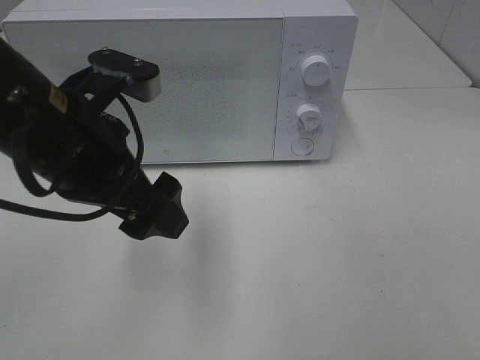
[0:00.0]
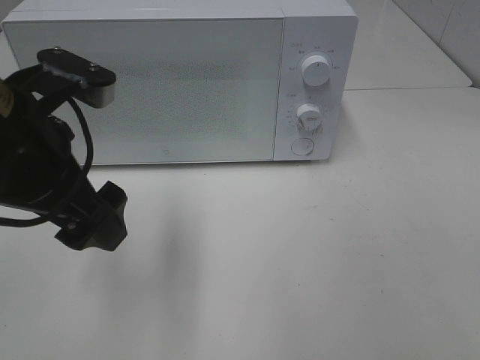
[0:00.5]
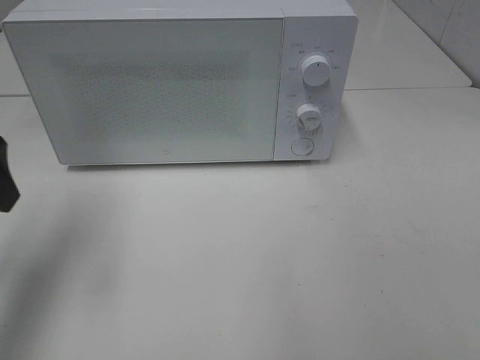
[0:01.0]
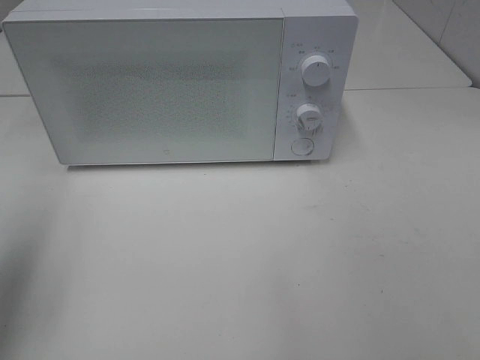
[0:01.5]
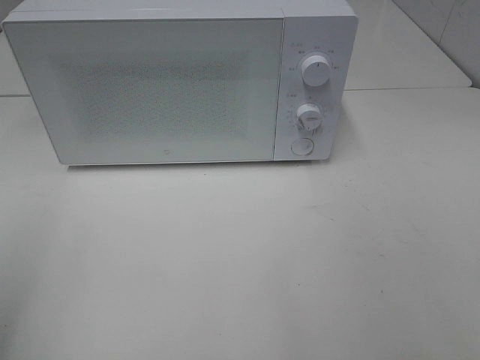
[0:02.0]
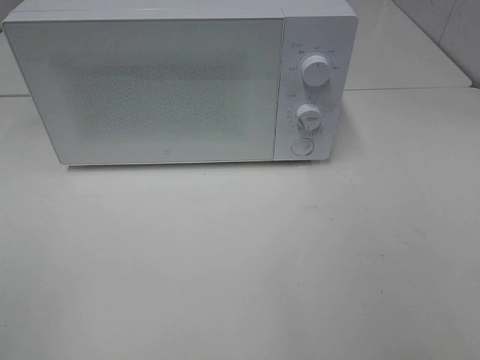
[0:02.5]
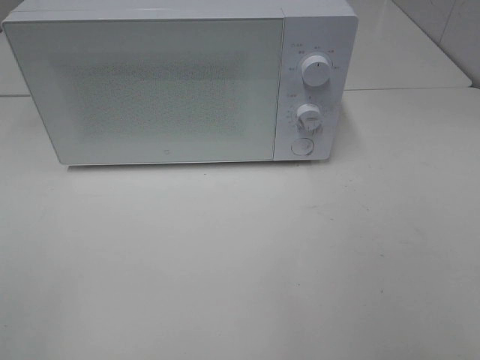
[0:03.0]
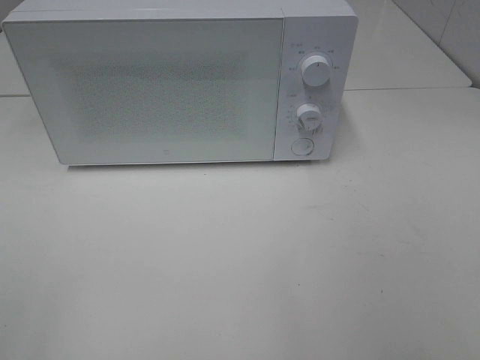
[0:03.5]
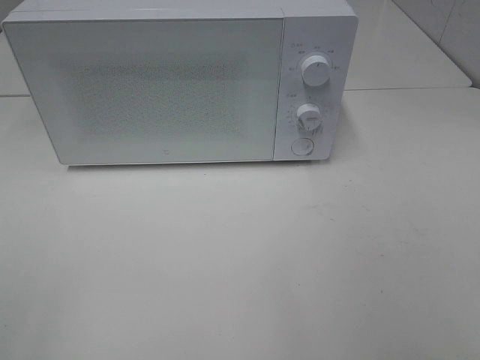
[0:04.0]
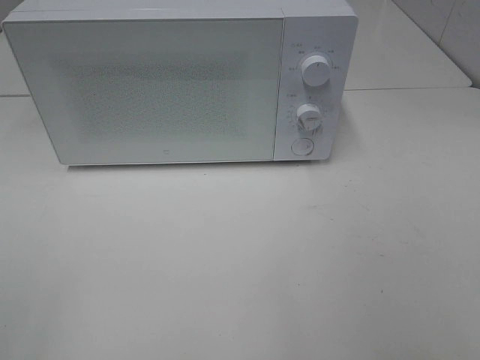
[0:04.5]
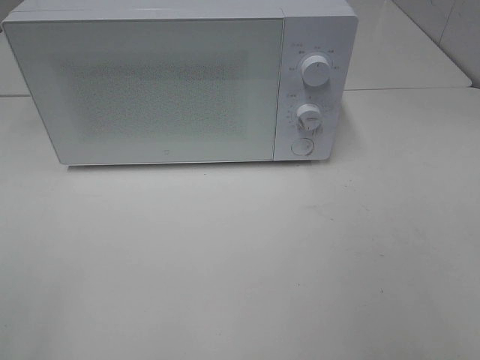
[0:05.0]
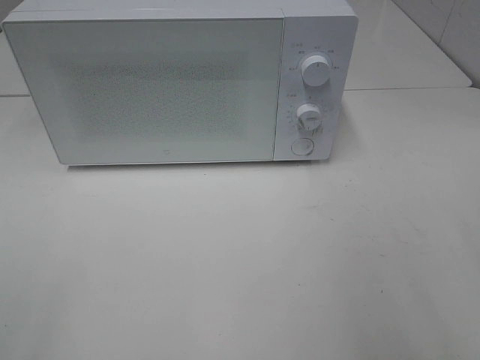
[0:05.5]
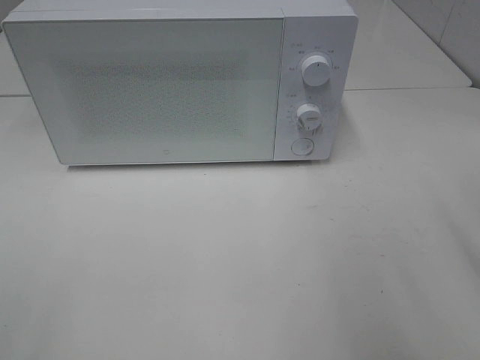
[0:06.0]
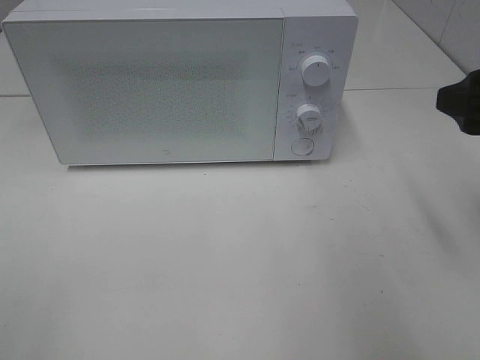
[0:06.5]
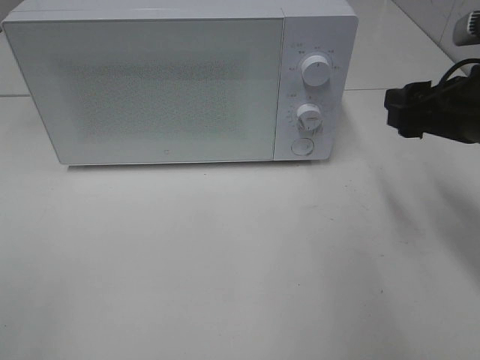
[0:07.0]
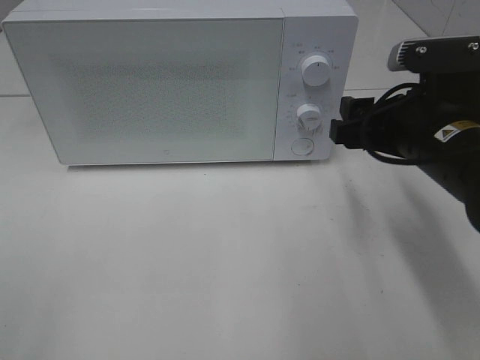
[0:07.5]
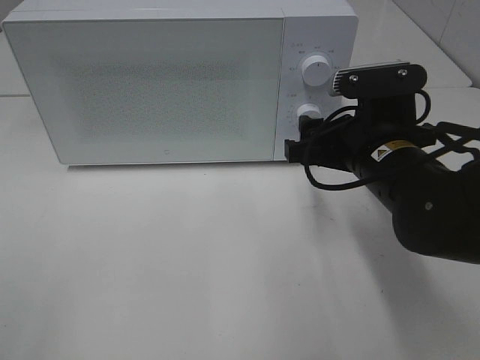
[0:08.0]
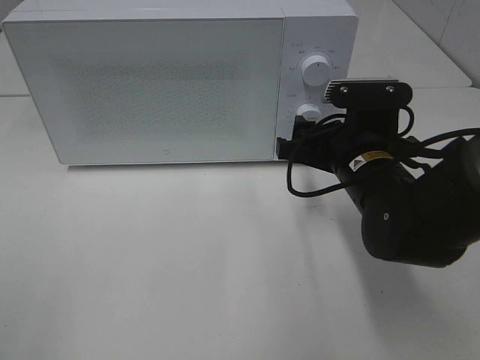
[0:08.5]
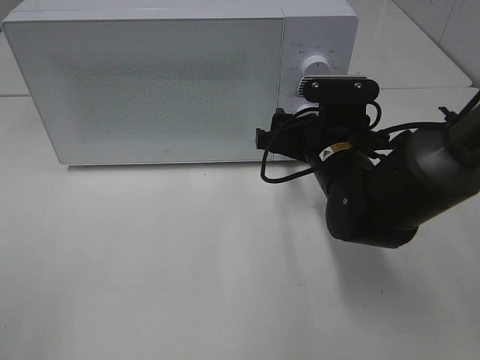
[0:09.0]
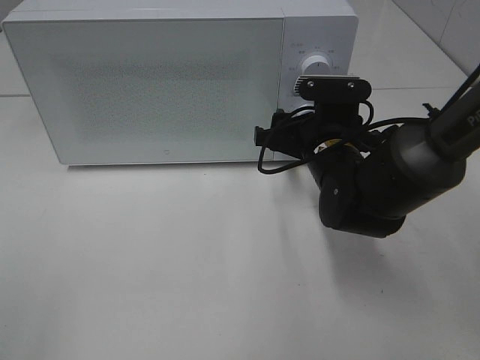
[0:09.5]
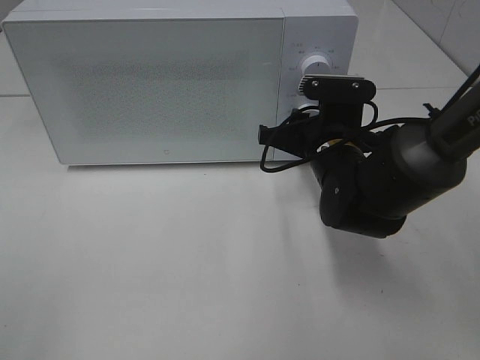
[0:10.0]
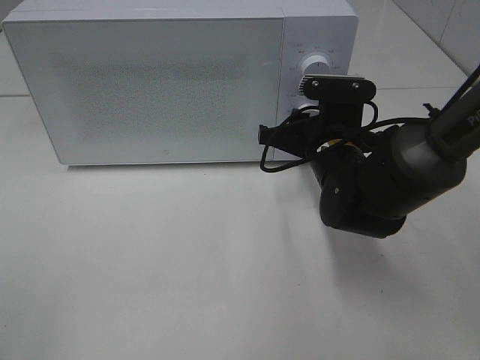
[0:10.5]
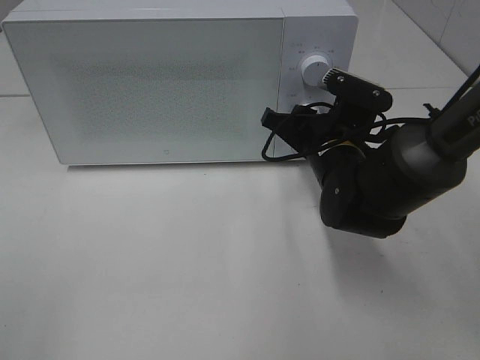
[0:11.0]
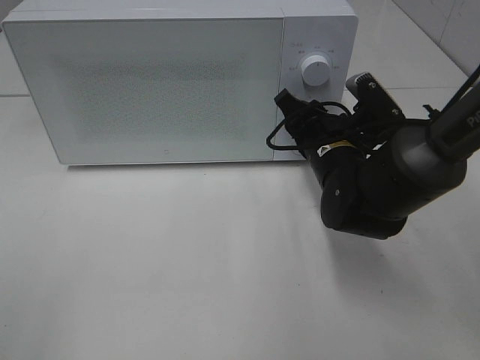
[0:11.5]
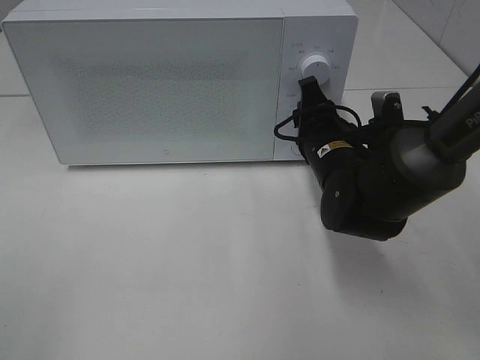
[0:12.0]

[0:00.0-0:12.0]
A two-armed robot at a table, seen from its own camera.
Task of the whole recording: Heat Sandwich.
0:00.0 to 0:02.0: The left gripper shifts approximately 25 cm to the left and backward.
0:06.0 to 0:08.0: The right gripper shifts some 20 cm downward, to the left and forward.
0:08.0 to 0:10.0: The right gripper shifts roughly 5 cm forward, and closes its fingers.

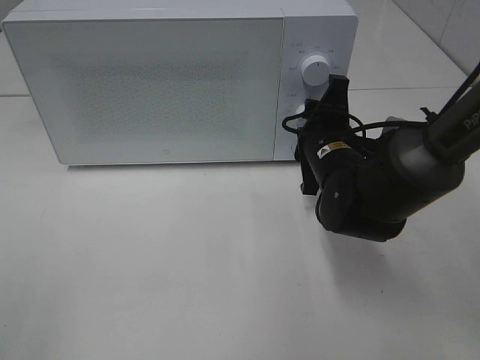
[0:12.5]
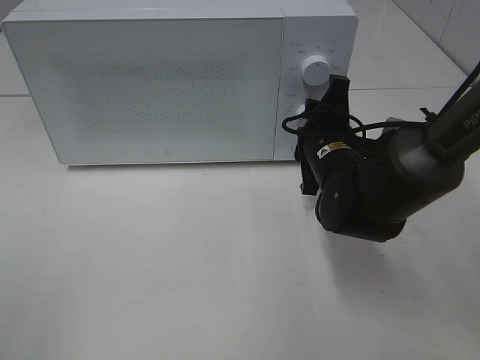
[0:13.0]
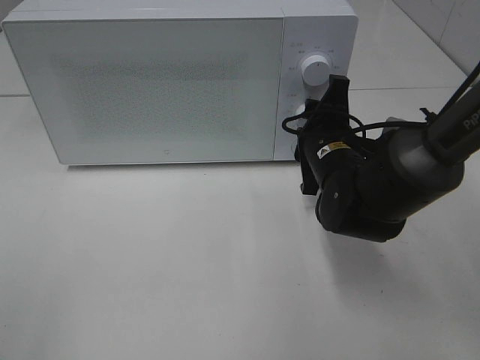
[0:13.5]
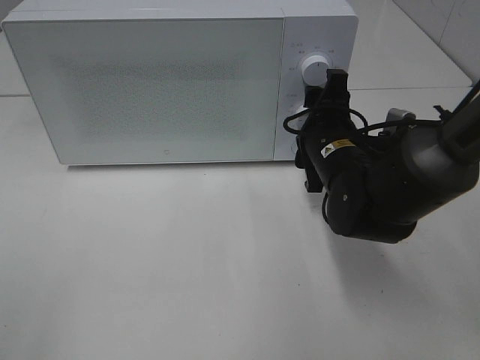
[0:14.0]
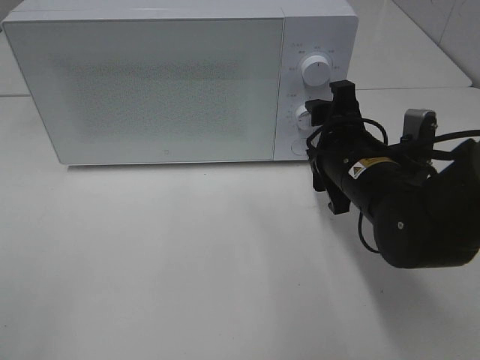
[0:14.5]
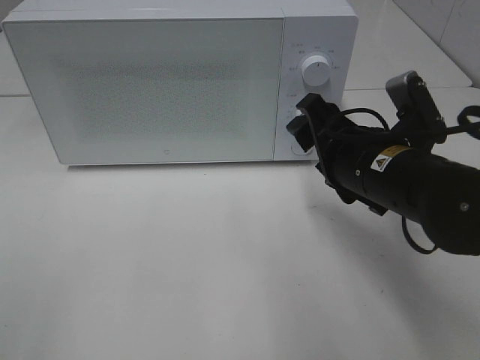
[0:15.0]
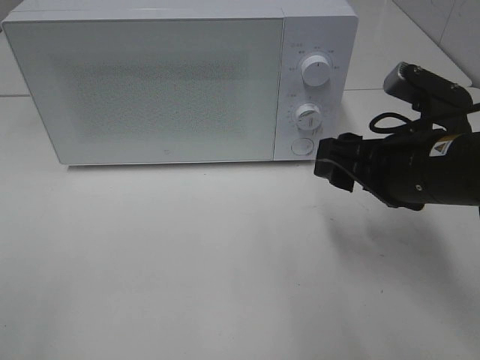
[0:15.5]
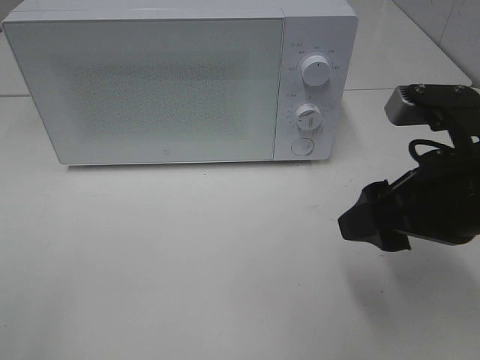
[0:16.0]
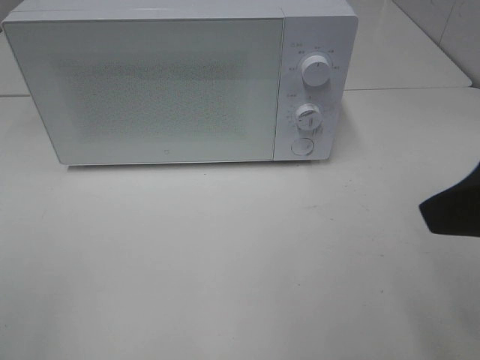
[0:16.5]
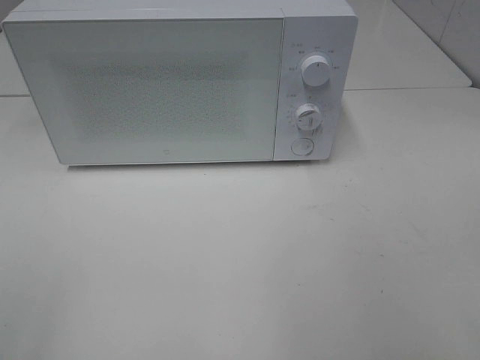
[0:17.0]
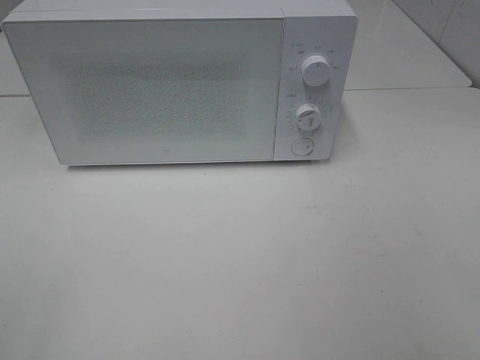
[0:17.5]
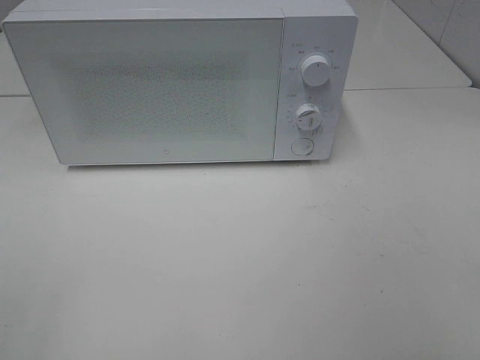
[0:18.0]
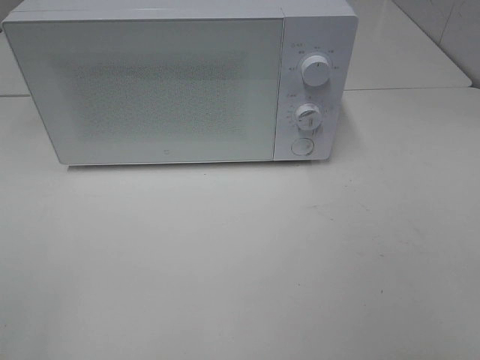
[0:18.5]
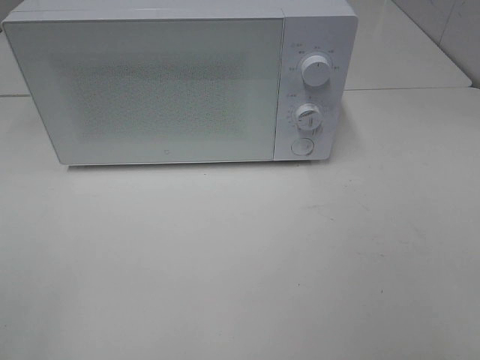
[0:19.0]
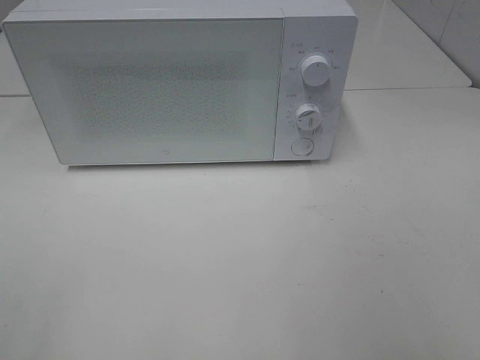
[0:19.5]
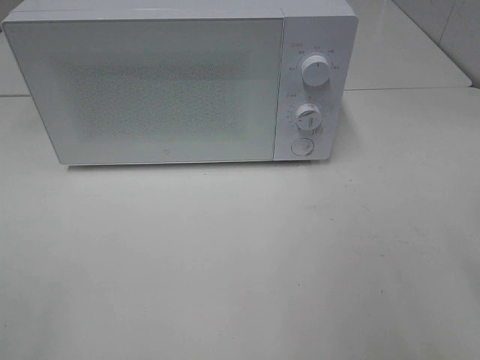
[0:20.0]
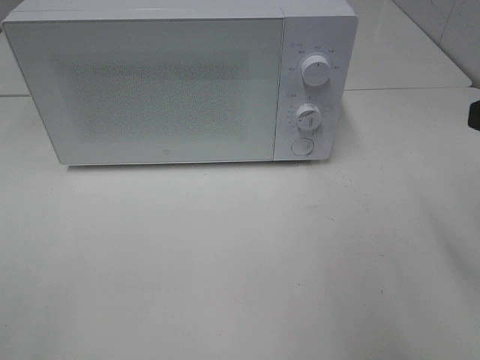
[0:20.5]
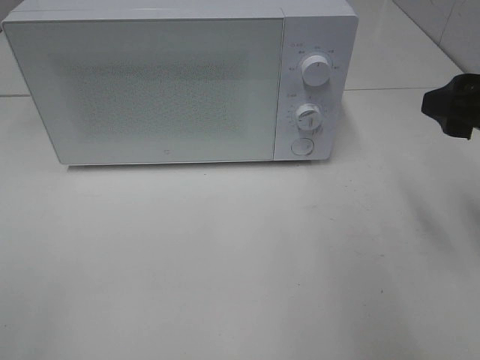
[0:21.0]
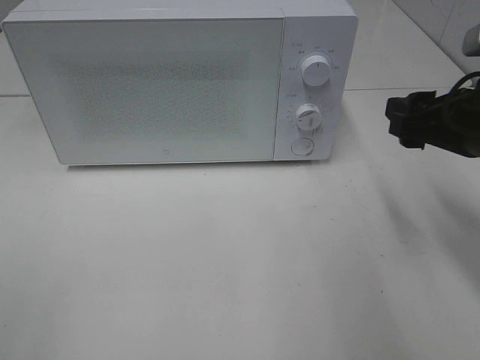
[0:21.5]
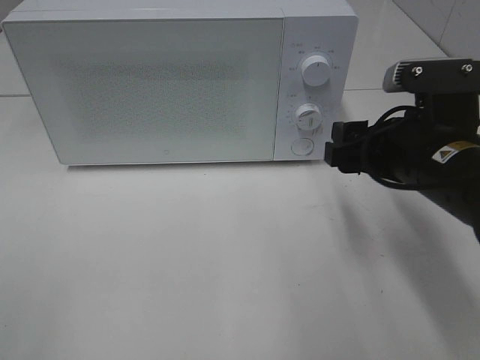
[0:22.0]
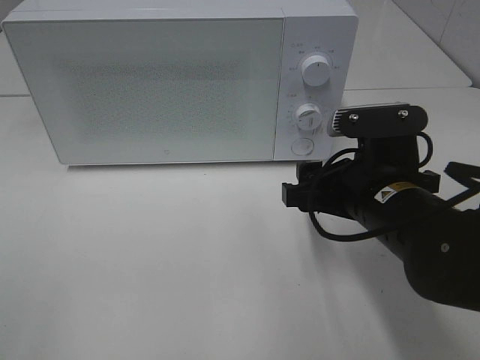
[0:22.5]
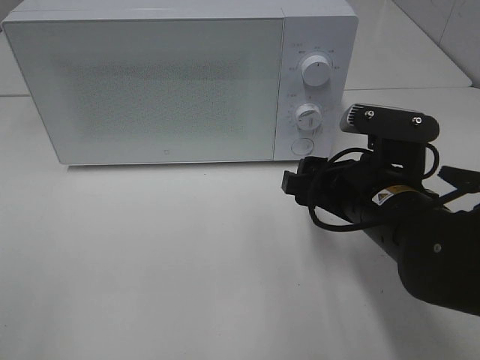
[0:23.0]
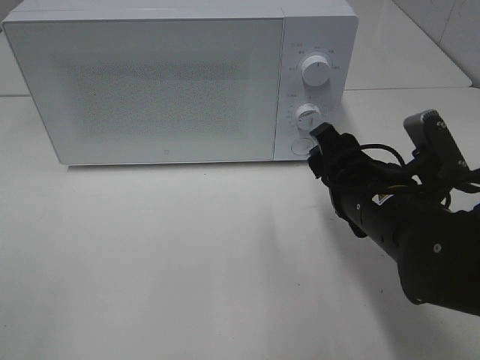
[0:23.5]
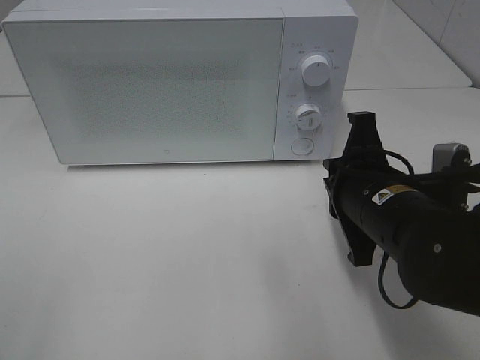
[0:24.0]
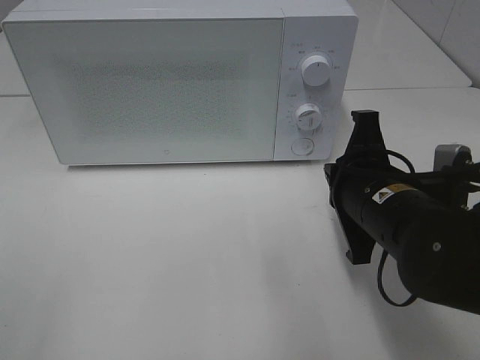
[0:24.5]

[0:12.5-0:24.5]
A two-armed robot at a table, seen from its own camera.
Task of the whole recording: Heat Sandwich.
0:12.5 to 0:14.5: The right gripper moves roughly 5 cm.
0:14.5 to 0:16.5: The right gripper is displaced upward, backward and to the right by about 25 cm.
0:16.5 to 0:18.5: The right gripper is displaced backward and to the right by about 15 cm.
0:20.5 to 0:22.5: The right gripper is displaced downward, to the left and forward by about 20 cm.
0:22.5 to 0:24.5: The right gripper closes up.

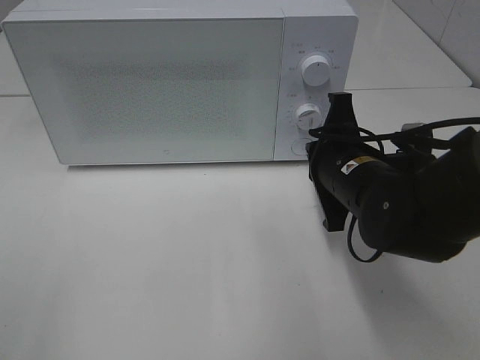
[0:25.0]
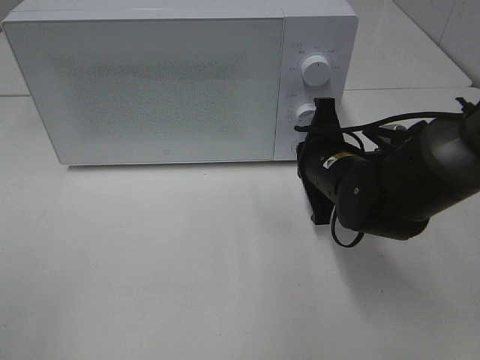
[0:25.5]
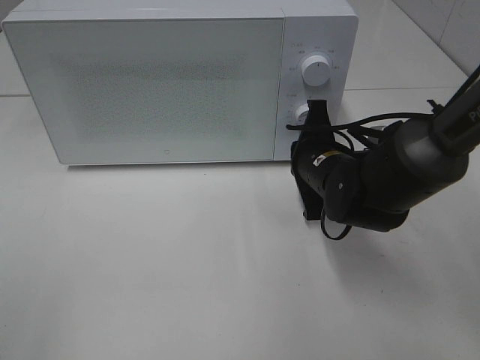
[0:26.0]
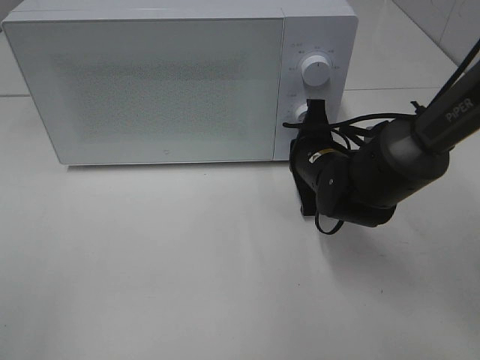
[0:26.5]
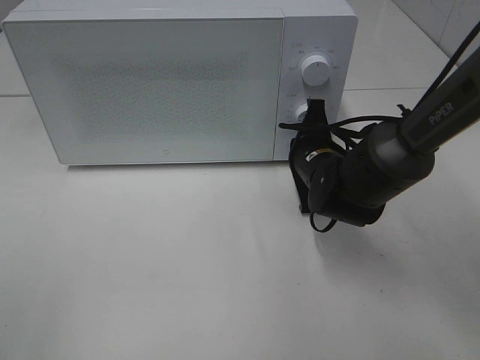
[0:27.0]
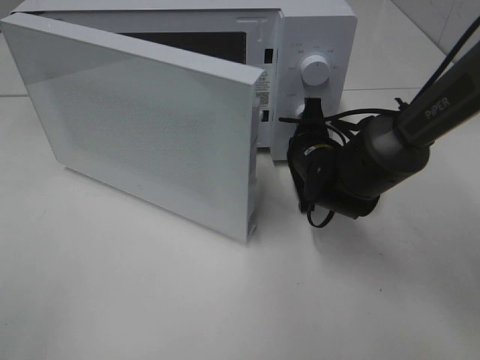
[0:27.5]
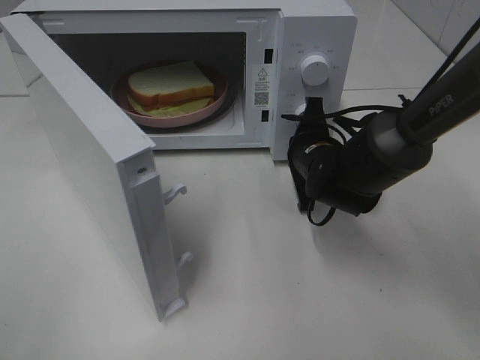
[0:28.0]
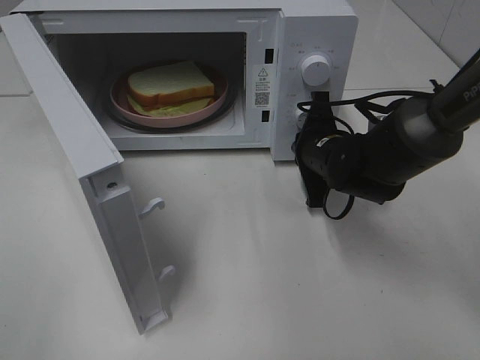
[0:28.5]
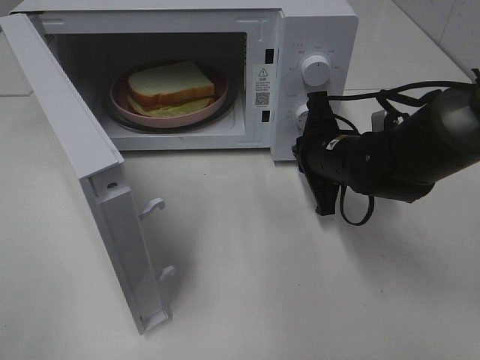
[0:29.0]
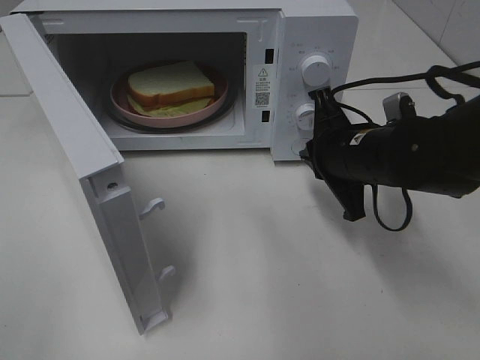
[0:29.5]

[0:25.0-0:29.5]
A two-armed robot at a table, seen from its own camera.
Task of the whole recording: Heat Sandwich.
Step, 0:25.0 to 0:28.5: Right hand: press the switch.
0:25.0 to 0:27.0: The right gripper moves forward and downward, roughly 10 cm.
0:27.0 to 0:29.5: The right gripper moves upward and backward, some 10 cm.
